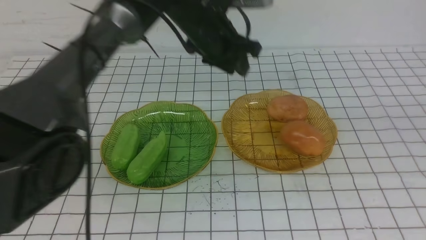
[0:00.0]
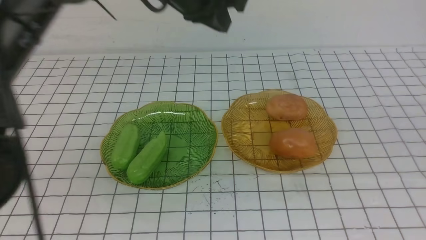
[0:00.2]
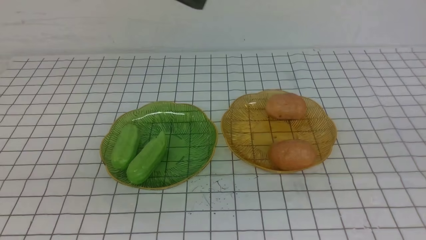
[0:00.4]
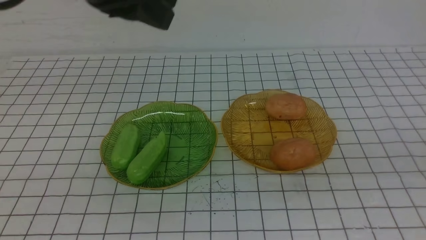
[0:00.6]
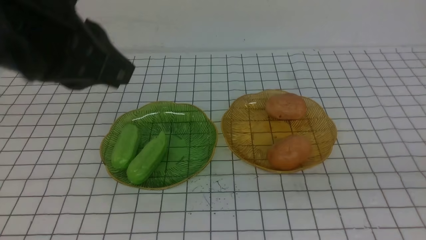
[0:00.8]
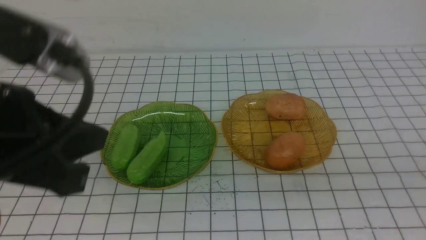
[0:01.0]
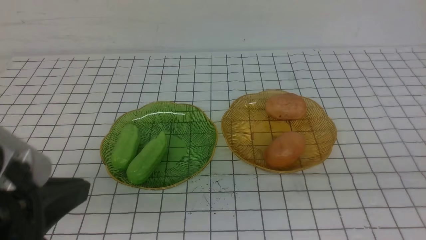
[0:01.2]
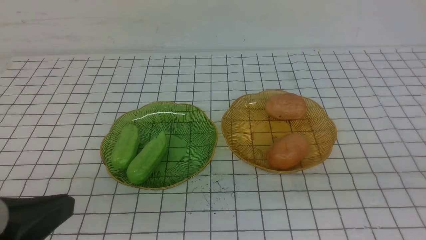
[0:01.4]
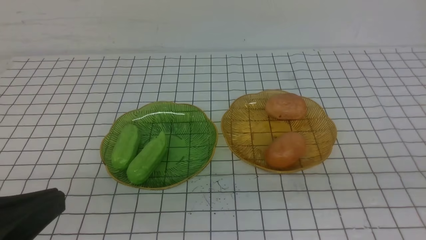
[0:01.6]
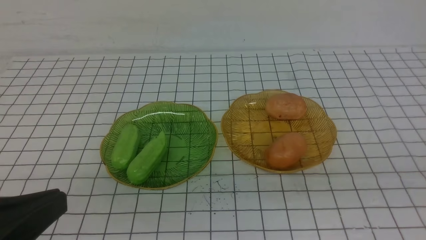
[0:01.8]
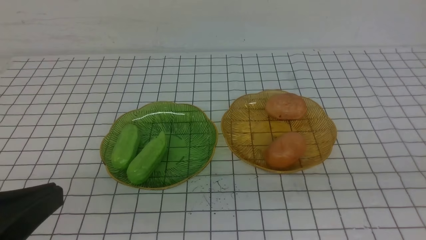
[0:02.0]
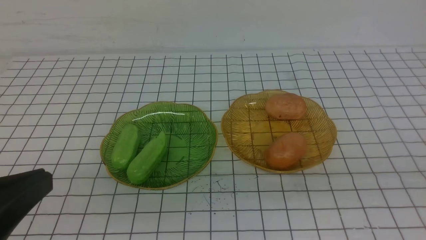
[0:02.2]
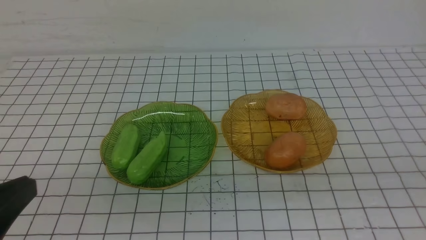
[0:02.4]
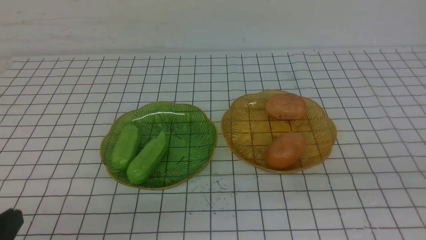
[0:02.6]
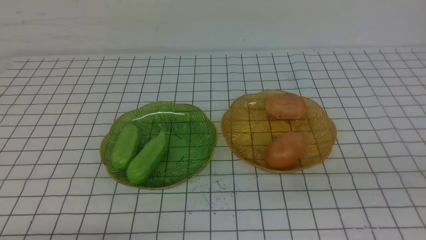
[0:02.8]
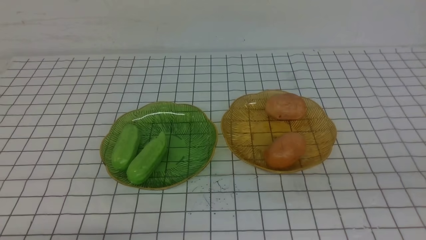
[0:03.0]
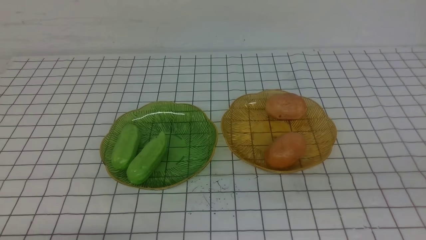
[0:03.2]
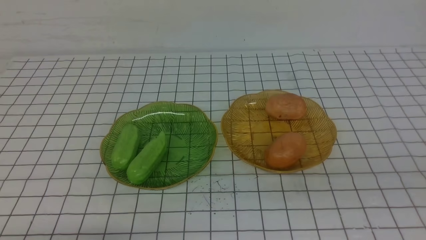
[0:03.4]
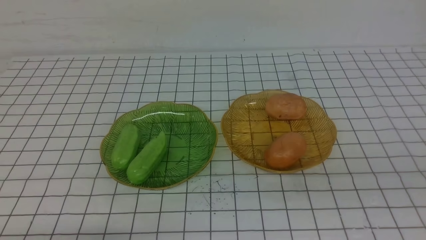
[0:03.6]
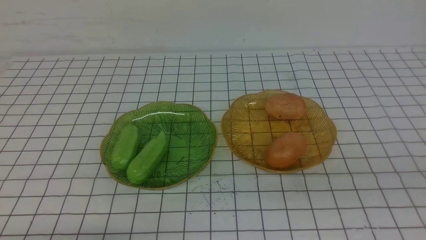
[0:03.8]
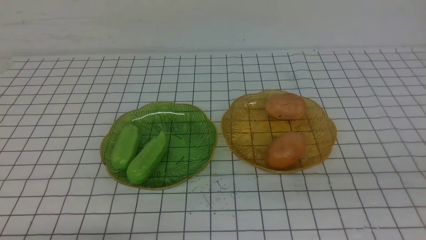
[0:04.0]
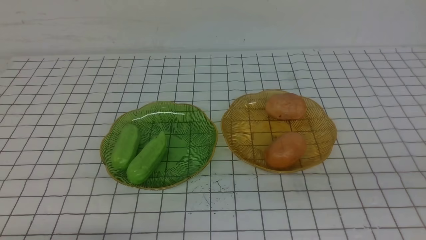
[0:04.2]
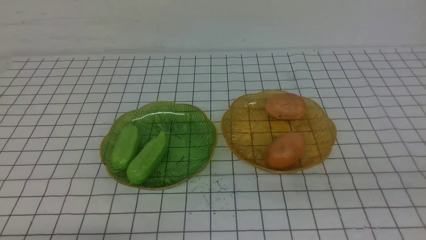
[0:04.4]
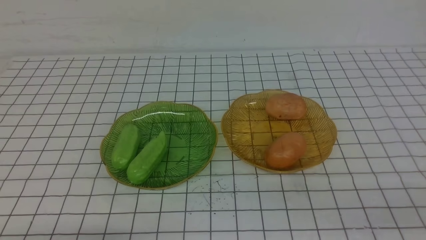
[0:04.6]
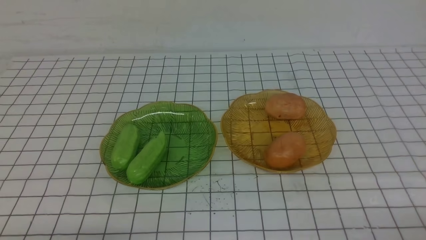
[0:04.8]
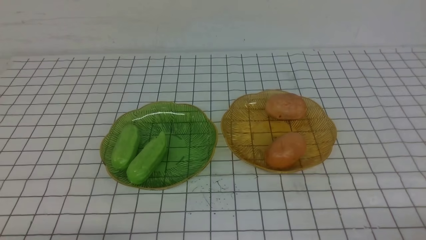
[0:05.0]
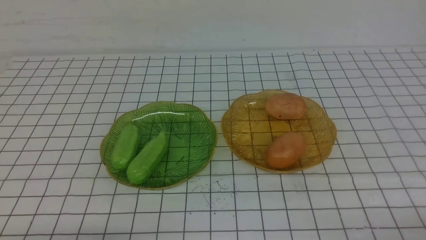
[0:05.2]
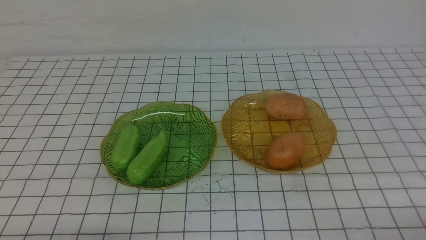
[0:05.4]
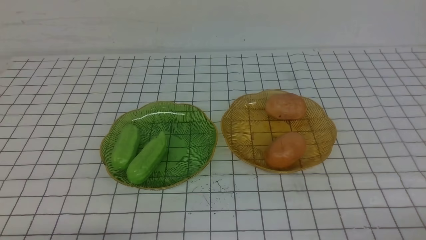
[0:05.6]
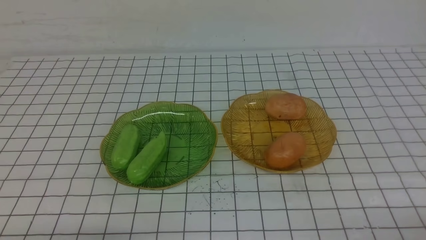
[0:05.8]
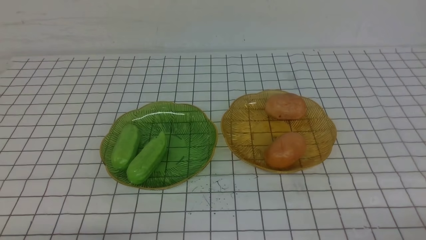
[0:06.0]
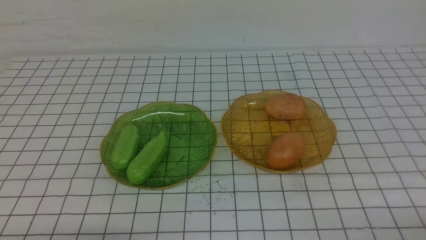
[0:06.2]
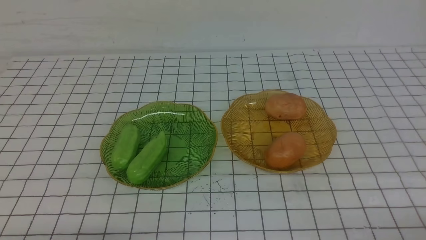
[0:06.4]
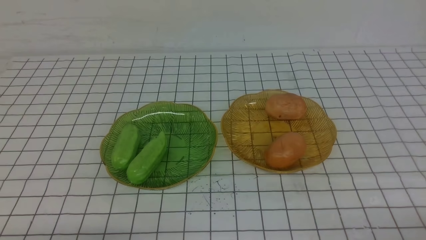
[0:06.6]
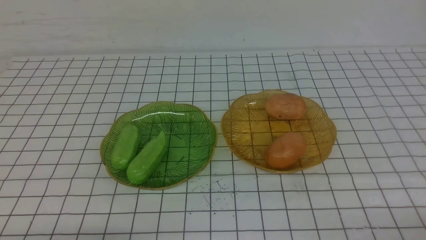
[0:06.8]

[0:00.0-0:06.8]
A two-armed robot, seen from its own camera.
0:00.0 to 0:01.4: The right gripper travels backward, downward and to the right by some 15 cm, while the left gripper heads backward and to the left, covering roughly 40 cm.
0:01.4 to 0:02.8: The left gripper shifts some 15 cm downward.
0:05.4 to 0:06.8: Neither gripper changes place.
